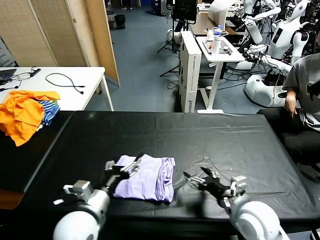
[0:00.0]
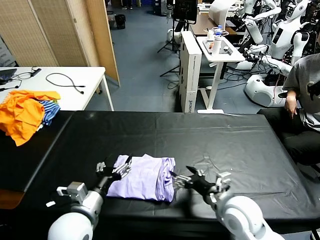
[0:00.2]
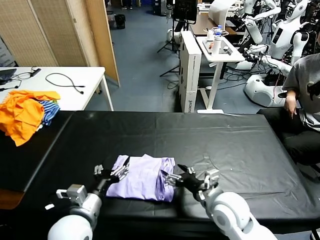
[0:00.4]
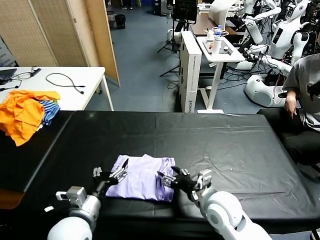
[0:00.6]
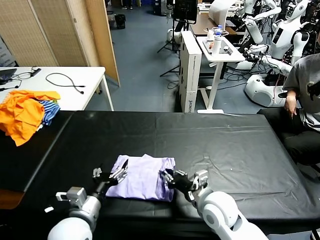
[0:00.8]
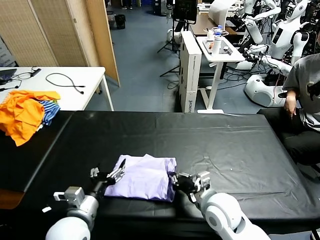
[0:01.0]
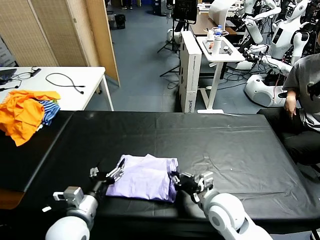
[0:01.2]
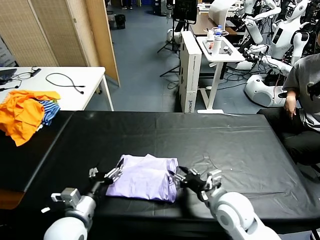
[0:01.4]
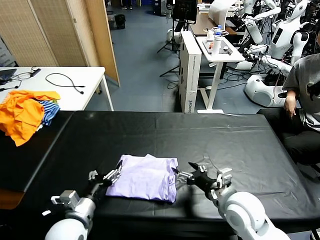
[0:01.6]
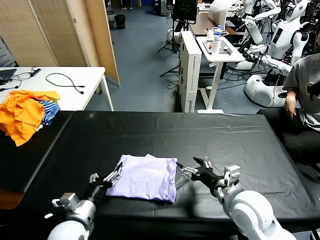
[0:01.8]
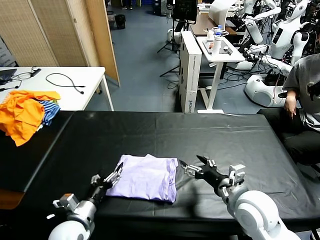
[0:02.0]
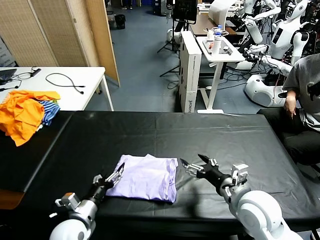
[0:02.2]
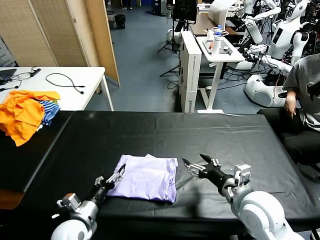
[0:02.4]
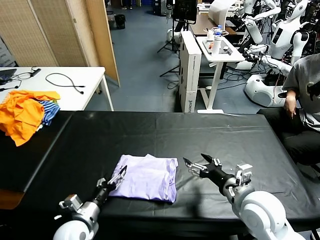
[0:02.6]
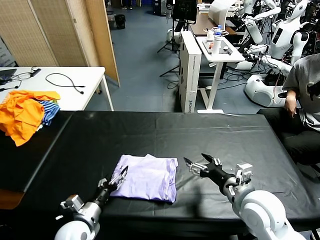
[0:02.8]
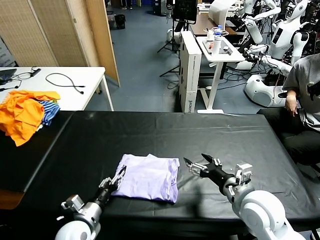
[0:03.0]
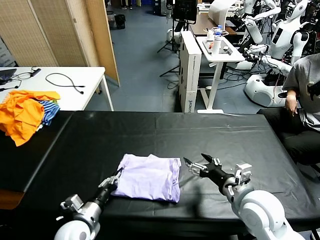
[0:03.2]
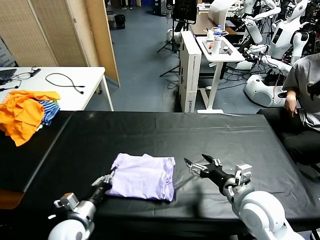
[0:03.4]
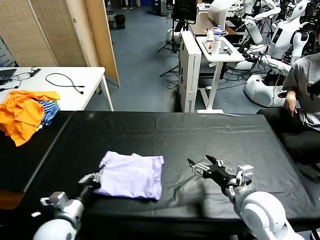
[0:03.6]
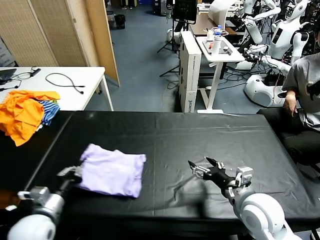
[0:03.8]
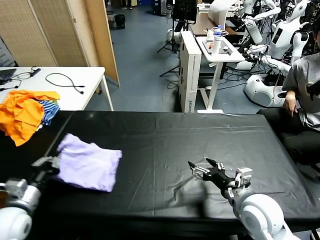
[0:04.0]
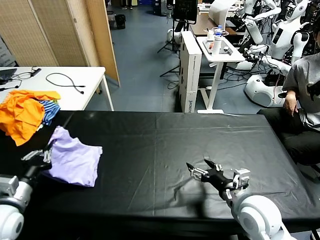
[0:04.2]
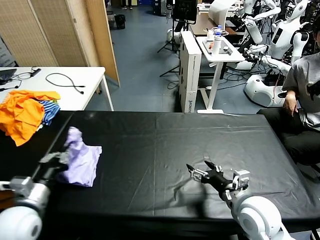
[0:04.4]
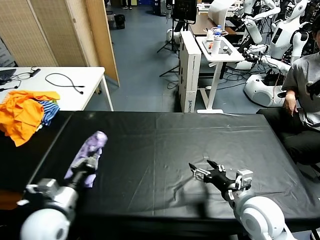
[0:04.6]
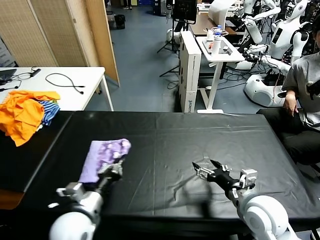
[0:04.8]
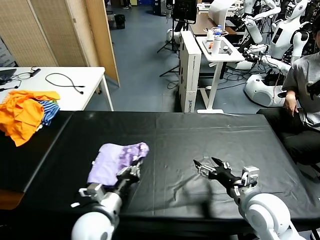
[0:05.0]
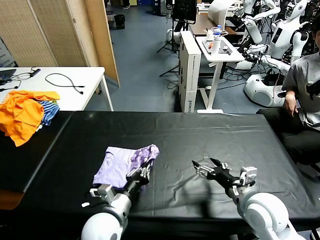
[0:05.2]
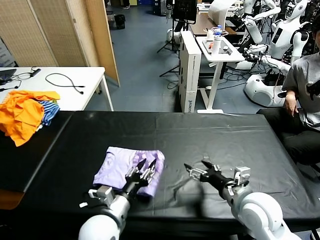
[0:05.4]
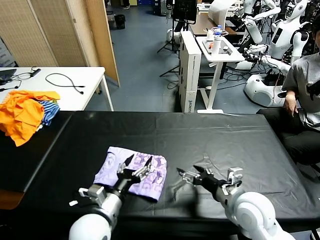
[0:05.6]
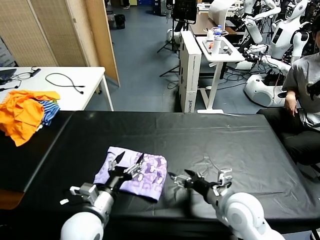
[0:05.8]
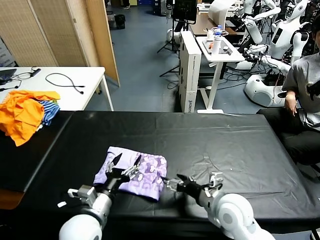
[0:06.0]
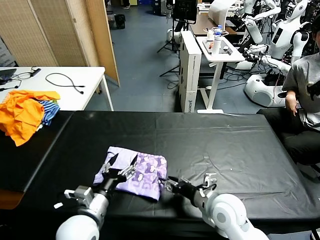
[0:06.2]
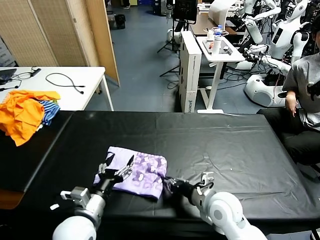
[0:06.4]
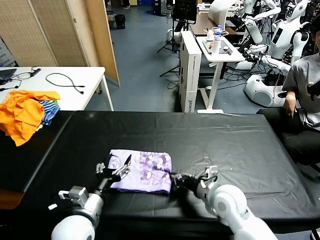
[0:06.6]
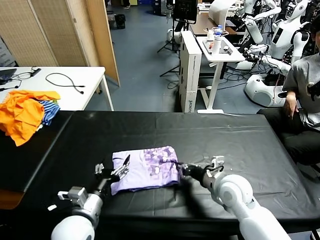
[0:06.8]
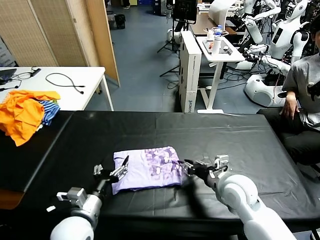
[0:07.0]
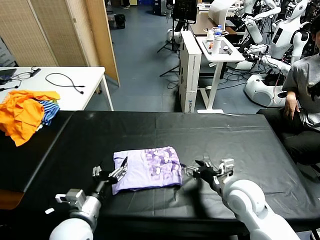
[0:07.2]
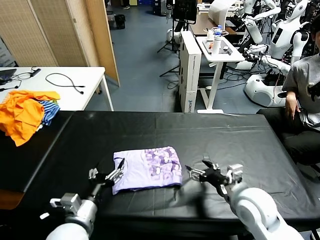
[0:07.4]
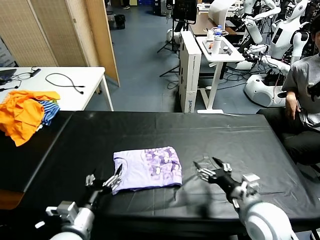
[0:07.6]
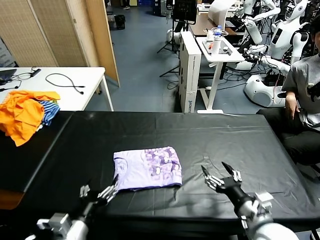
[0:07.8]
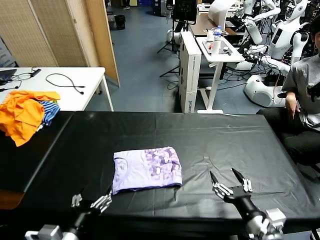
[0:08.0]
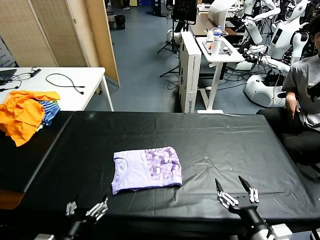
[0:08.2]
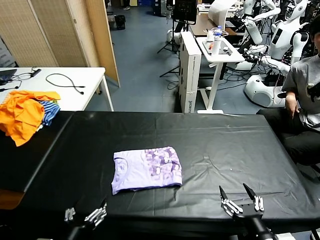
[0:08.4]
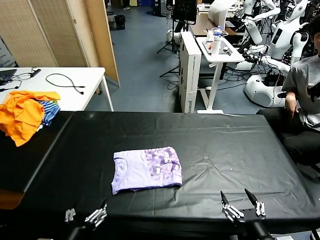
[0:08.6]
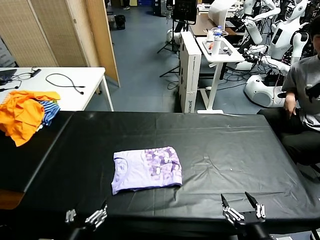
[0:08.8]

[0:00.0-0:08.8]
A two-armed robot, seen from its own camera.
Task of the whole recording: fold and organize the clothes.
Step, 0:01.6 to 0:05.6: Flip the folded clothes over with left gripper.
Step, 0:05.8 to 0:07.2: Drag the clothes to the center of the table.
0:00.0 to 0:01.4: The right gripper closes and opens again, while the left gripper changes place by about 5 cm.
0:01.4 to 0:03.0: The right gripper ends up approximately 5 cm from where it was, while the left gripper is displaced downward by about 10 cm.
0:03.0 to 0:04.4: The left gripper is displaced upward and to the left by about 15 cm, and closes up.
0:04.4 to 0:05.8: The left gripper shifts roughly 15 cm to the right, and opens up.
0:05.8 to 0:07.4: The right gripper closes and opens again.
0:07.4 to 0:08.8: The right gripper moves backward, some 20 cm; the left gripper heads backward, covering approximately 10 cm.

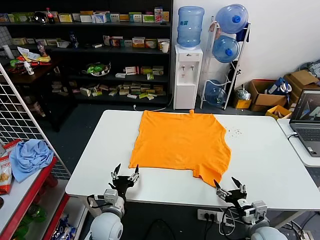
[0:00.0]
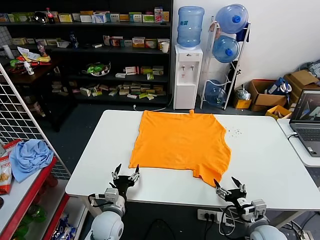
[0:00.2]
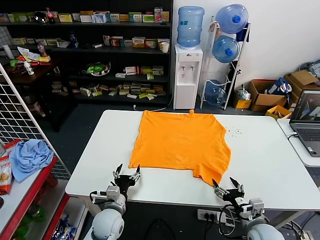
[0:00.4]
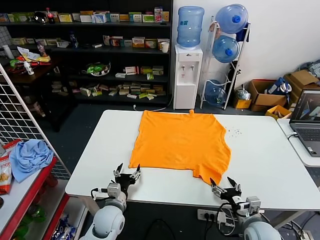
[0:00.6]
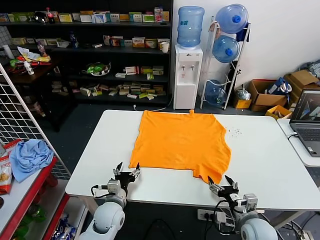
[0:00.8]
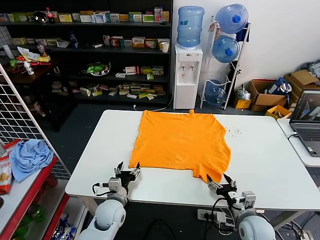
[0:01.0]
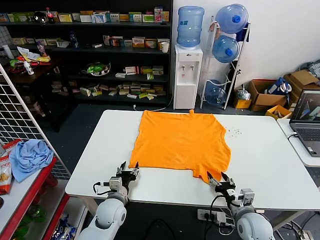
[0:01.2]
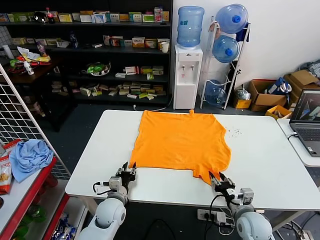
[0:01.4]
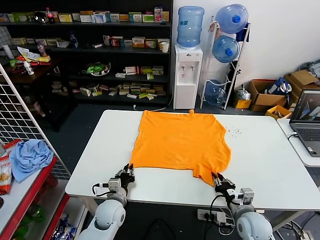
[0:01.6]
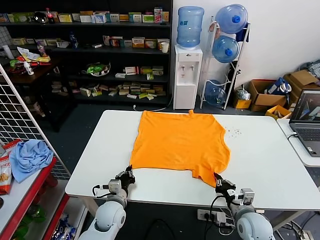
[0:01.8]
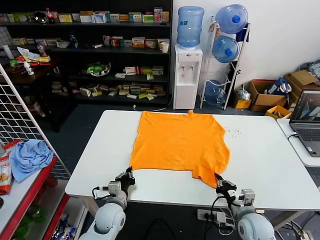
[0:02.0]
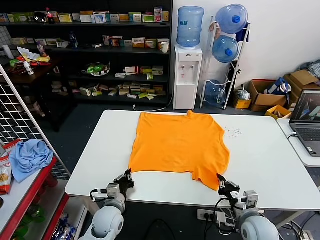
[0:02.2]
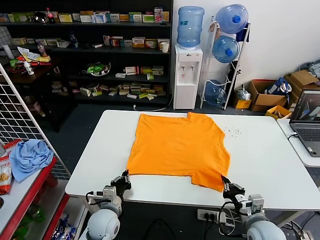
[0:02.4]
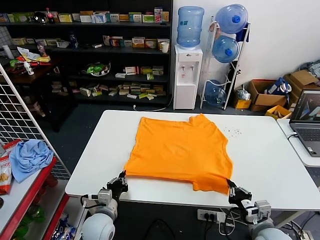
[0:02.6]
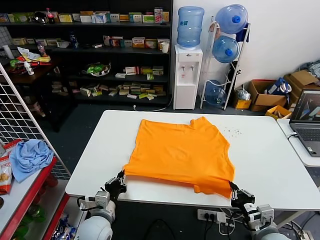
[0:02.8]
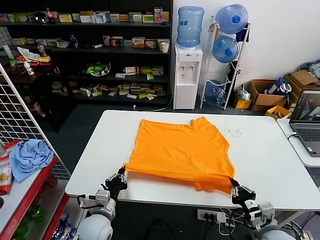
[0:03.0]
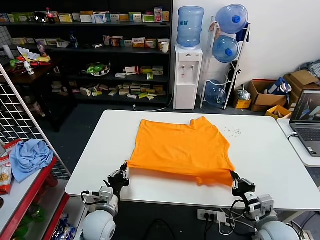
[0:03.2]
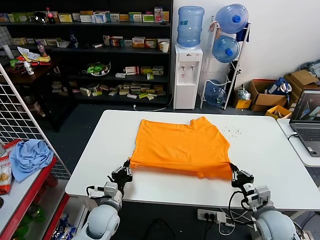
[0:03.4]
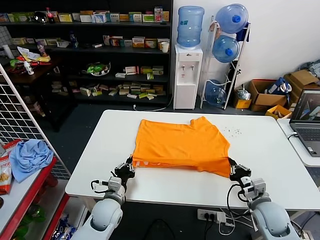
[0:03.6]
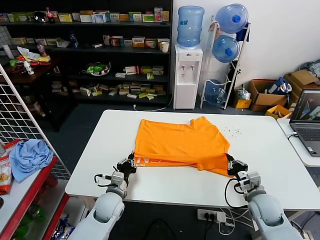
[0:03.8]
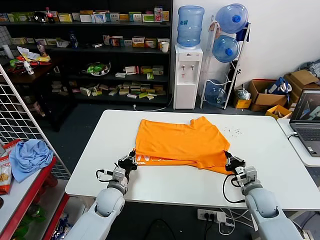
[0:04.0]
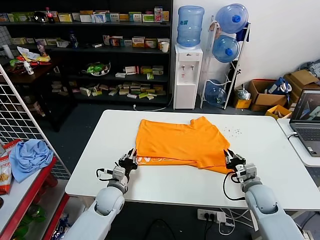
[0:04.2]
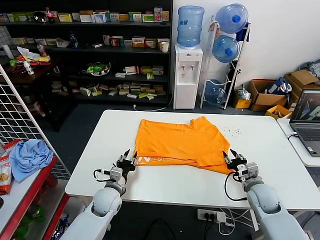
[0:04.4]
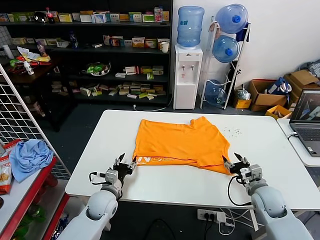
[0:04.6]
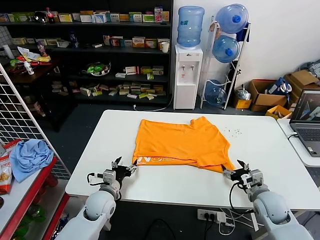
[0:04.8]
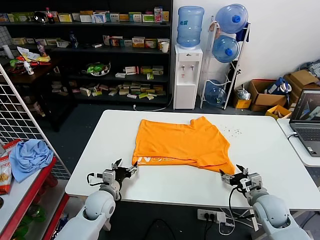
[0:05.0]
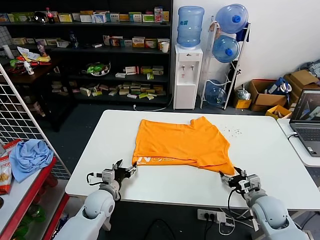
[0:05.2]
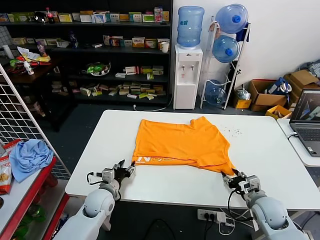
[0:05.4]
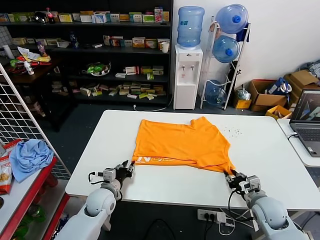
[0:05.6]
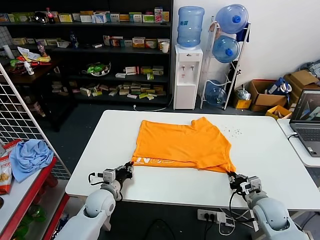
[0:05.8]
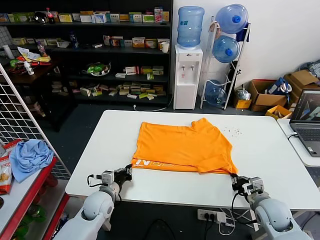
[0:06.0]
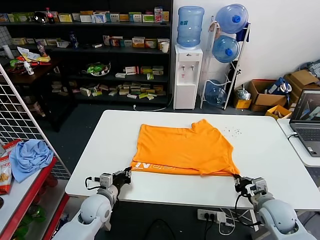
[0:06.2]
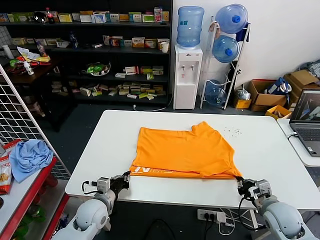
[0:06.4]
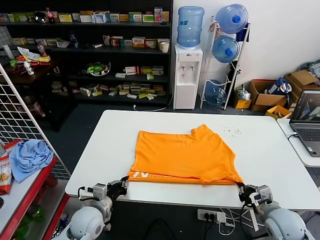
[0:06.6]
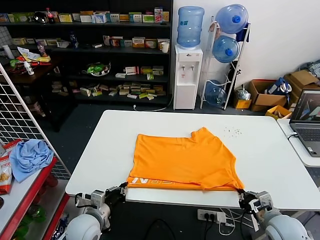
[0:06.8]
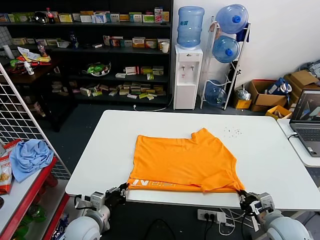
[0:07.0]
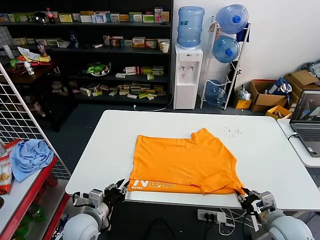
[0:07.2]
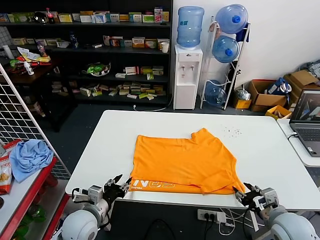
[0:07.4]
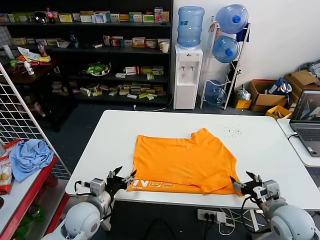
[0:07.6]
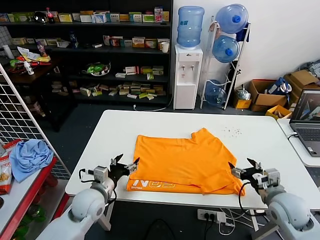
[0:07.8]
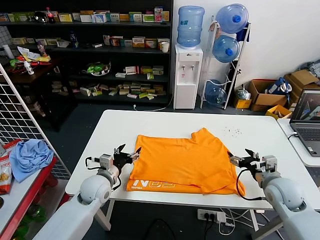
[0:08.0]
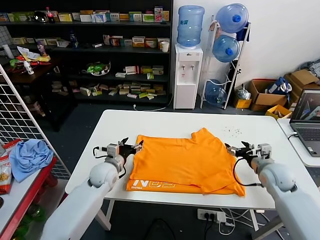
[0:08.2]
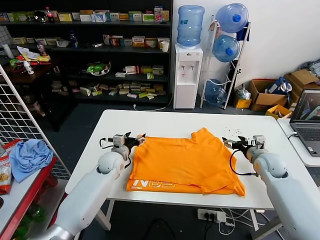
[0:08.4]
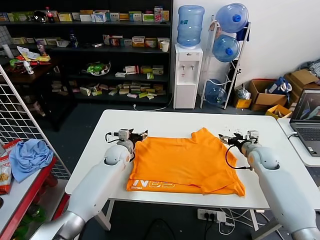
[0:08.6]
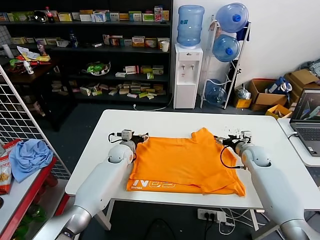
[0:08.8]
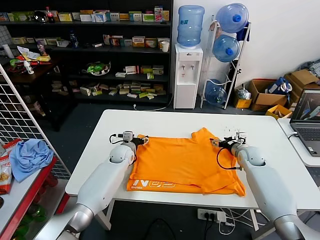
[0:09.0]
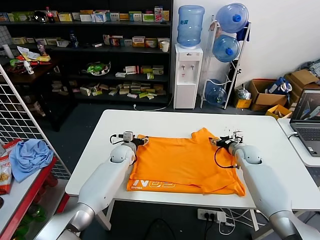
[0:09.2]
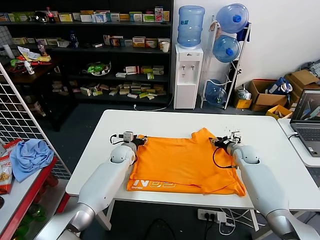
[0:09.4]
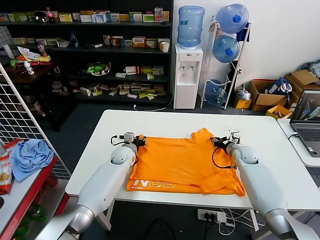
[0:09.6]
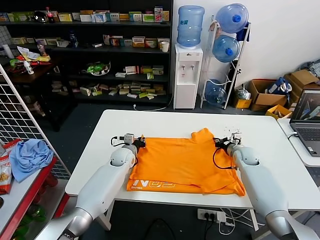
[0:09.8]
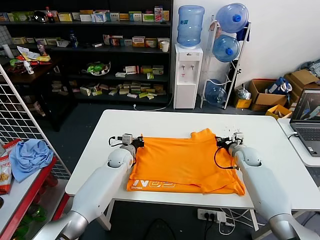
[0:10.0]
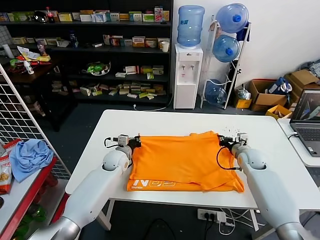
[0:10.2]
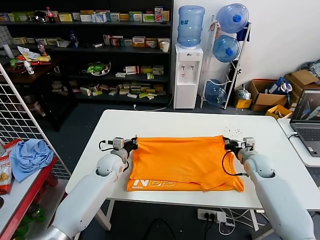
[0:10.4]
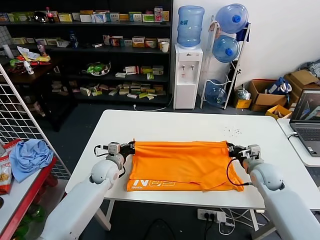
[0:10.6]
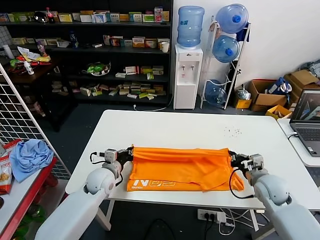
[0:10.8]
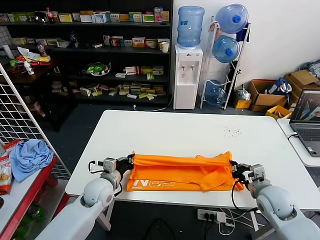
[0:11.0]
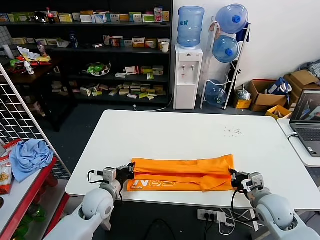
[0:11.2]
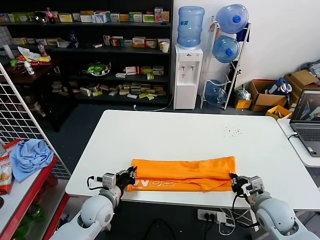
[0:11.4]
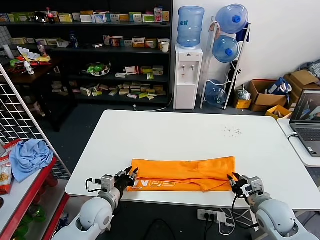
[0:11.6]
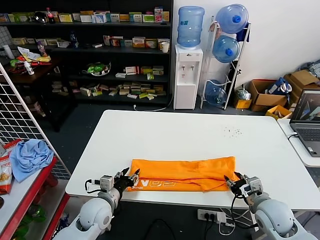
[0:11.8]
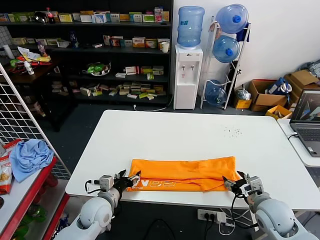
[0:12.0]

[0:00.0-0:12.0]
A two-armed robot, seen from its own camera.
Task of the whole recording: fold and organize the clothes.
Step, 0:00.0 to 0:02.0: use both grippers simultaneously to clamp the lower edge of the clothing fabric.
Step, 0:02.2 to 0:04.2: use both grippers to drag the lower edge of the fabric forward and fold it over the upper edge.
Step, 0:04.4 to 0:07.2: Drag the clothes downward with both gripper.
Step, 0:07.4 to 0:10.0: use both grippers simultaneously to clamp the upper edge of the clothing fabric.
Step, 0:10.2 to 0:11.6: use both grippers to drag the upper edge of the fabric backward and fold it over the lower edge.
0:01.6 to 0:03.0: The left gripper goes roughly 5 cm backward; the right gripper moves backward and upward, about 10 cm.
0:03.0 to 0:04.4: Both grippers move forward, approximately 10 cm. The right gripper opens its fingers; the left gripper opens.
0:04.4 to 0:06.0: The right gripper closes up. The left gripper closes up.
0:06.0 to 0:07.6: The left gripper moves upward and backward, roughly 10 cm, and opens. The right gripper shifts some 5 cm upward, and opens up.
0:07.6 to 0:09.0: Both grippers travel together forward, some 25 cm.
0:09.0 to 0:10.4: Both grippers move backward, roughly 5 cm. The right gripper closes up. The left gripper closes.
0:10.4 to 0:12.0: The grippers both shift backward by roughly 15 cm. The right gripper opens its fingers; the left gripper opens.

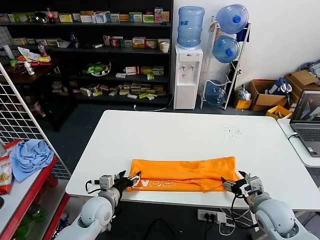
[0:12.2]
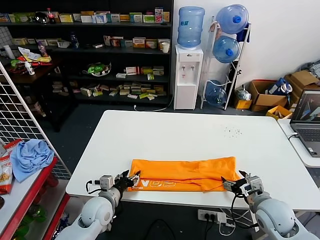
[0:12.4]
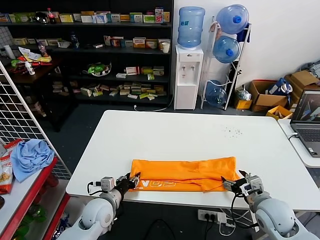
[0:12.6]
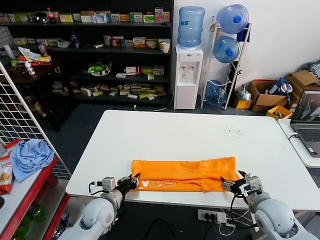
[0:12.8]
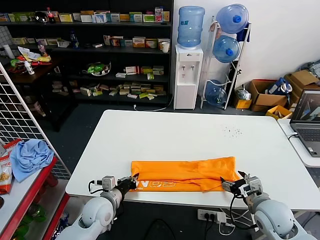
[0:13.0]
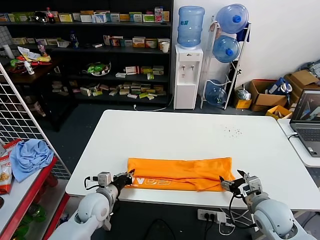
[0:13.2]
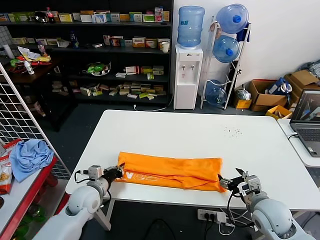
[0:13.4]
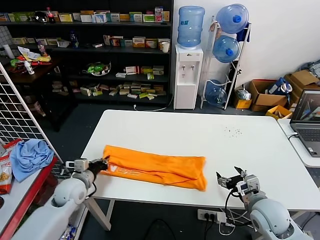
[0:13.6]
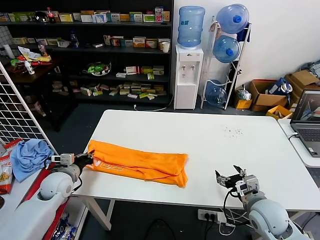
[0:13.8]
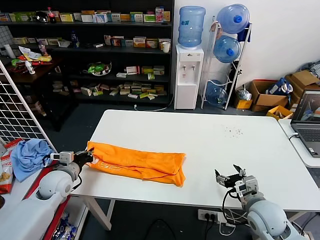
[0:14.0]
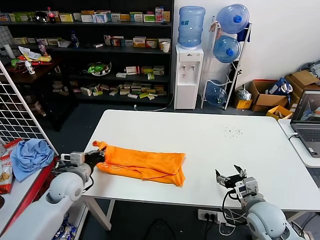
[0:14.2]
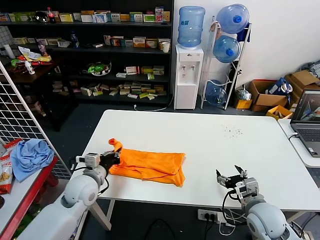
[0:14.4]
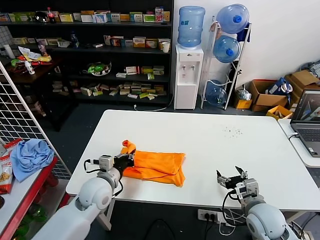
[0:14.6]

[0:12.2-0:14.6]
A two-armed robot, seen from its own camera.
Task of the whole recording: fold and organize the clothes.
Step, 0:12.2 to 0:13.0: use the left gripper to clamp the left edge of the fabric.
0:12.2 to 0:13.4: The left gripper moves roughly 5 cm, and closes its fingers.
0:13.4 to 0:14.6: The left gripper heads upward, covering approximately 5 cm, and reaches about 10 cm to the left, then returns.
